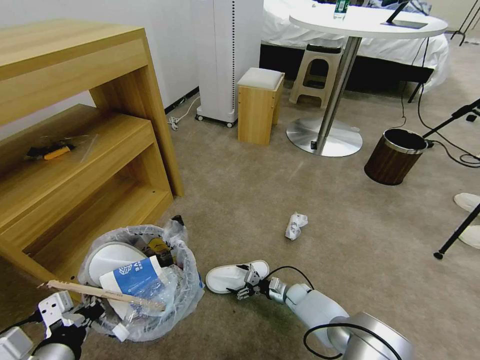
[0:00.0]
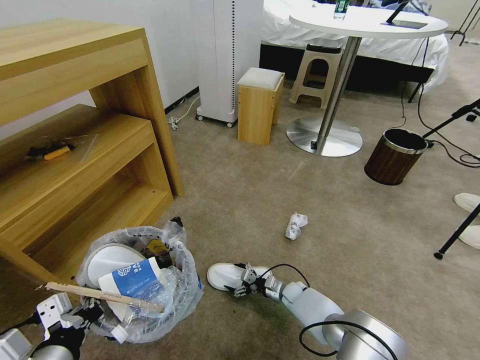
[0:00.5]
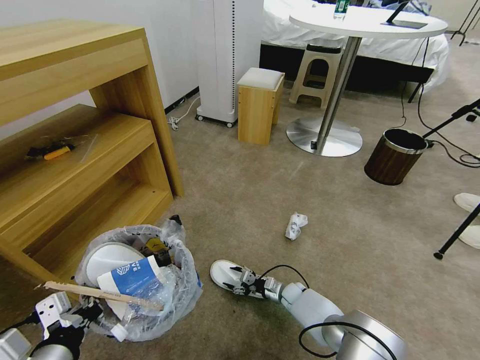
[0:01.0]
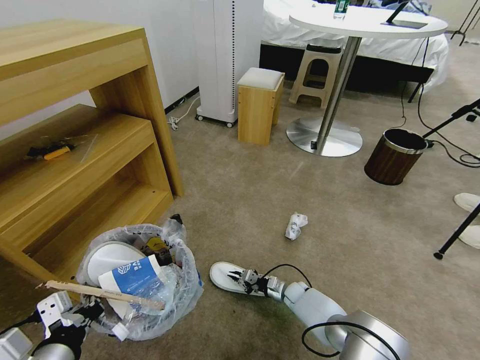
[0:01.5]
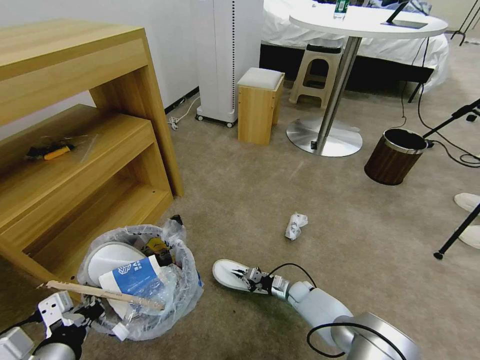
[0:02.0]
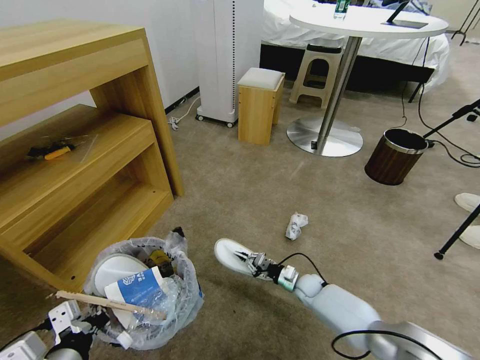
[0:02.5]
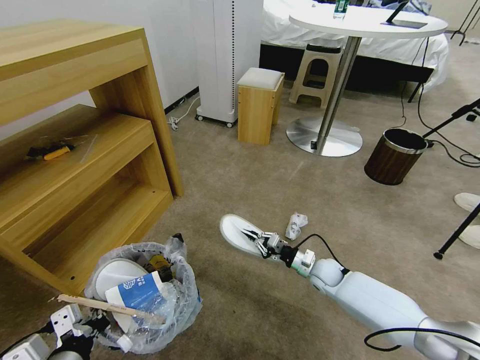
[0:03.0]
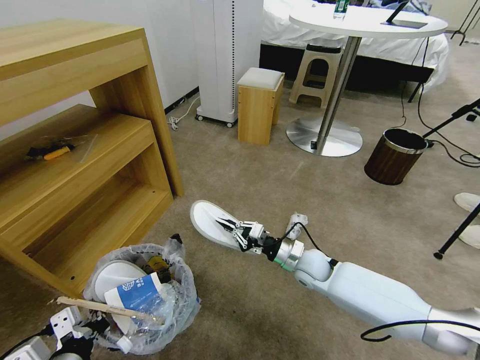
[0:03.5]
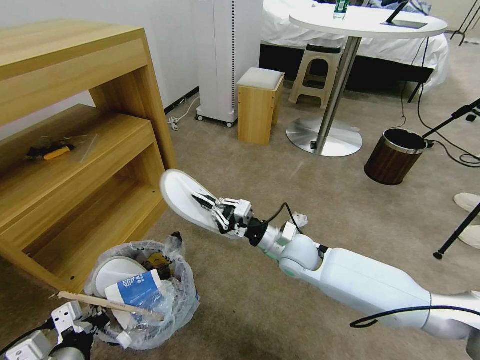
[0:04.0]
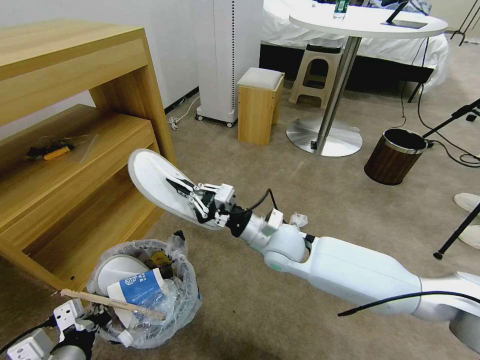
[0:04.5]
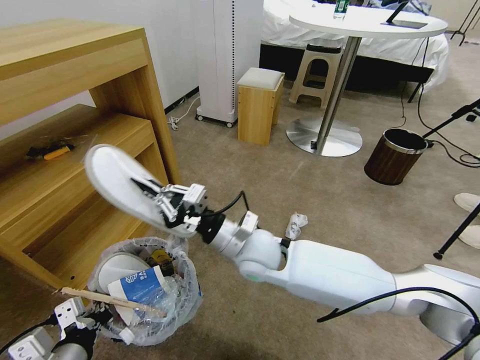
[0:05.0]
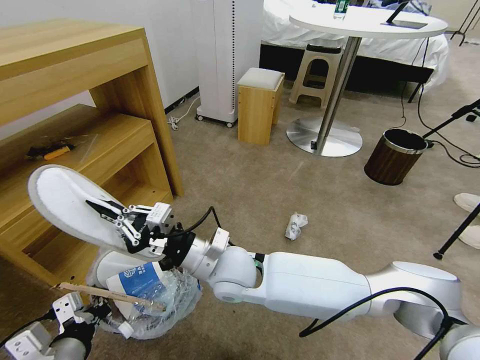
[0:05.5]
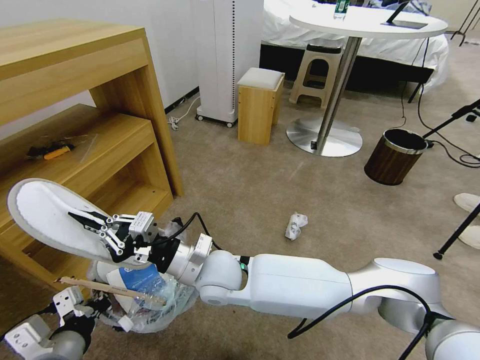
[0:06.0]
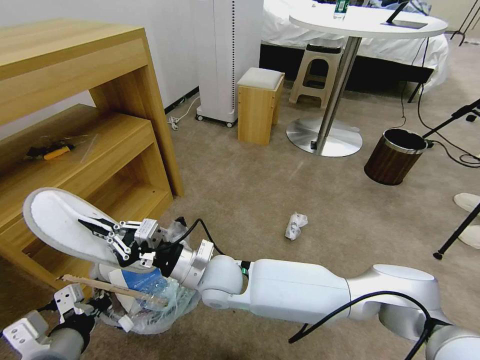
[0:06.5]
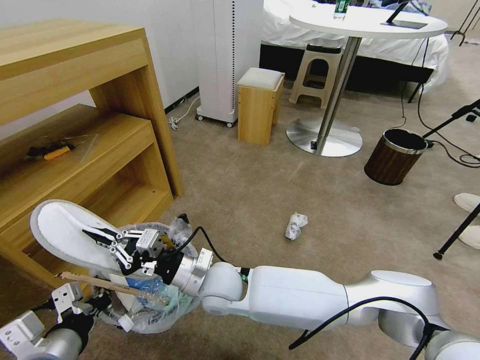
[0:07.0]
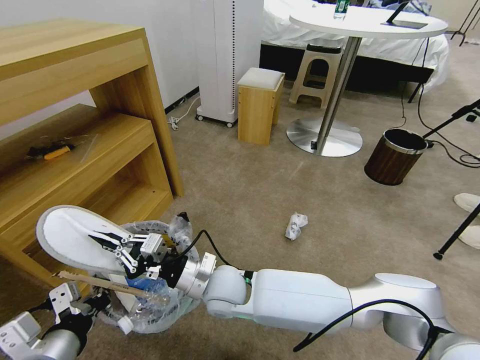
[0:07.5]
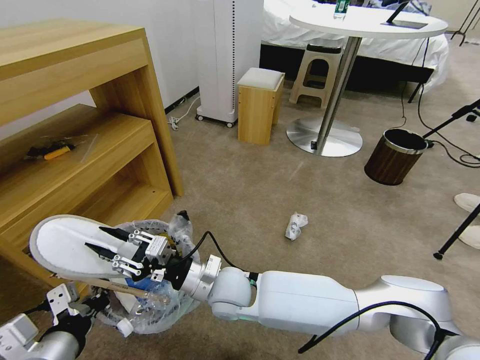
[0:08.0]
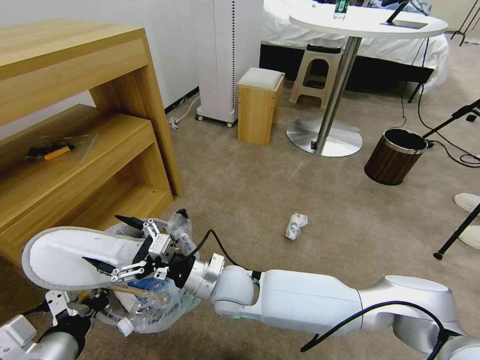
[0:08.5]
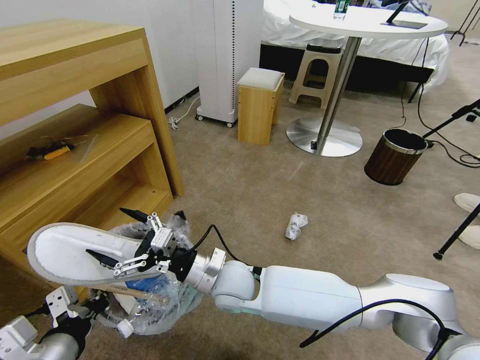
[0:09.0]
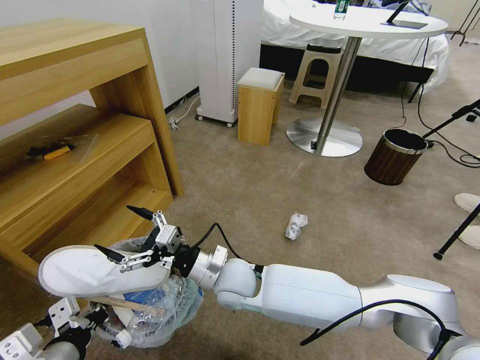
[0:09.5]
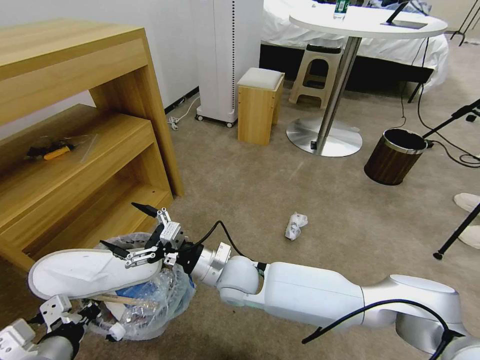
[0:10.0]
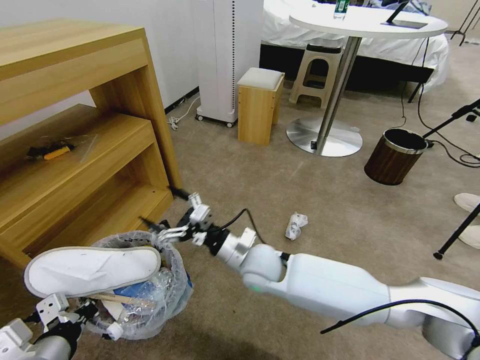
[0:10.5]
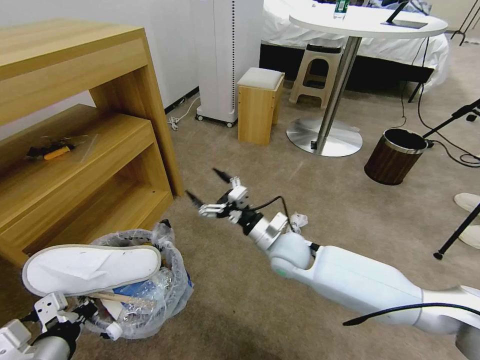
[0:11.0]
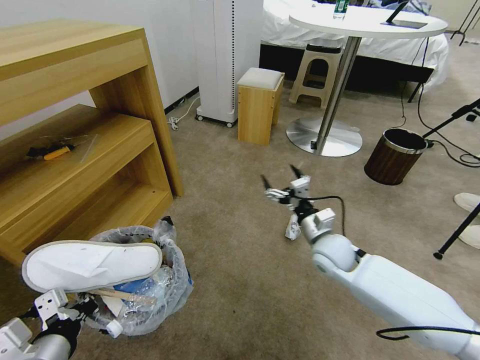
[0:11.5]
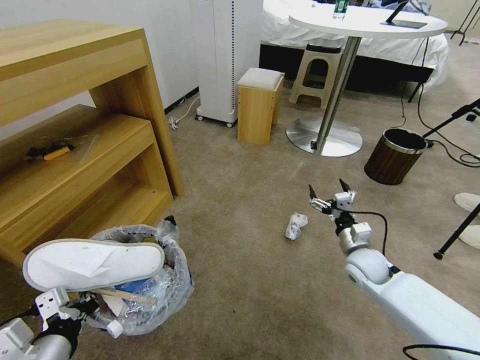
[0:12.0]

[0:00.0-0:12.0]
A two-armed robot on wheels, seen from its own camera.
Task of the whole recording: Pick up the trash bin and place the garbage on the floor into it.
0:00.0 to 0:02.0: The right gripper closes up.
0:02.0 to 0:04.0: The right gripper is displaced upward by some 30 cm.
0:04.0 to 0:06.0: The right gripper goes some 20 cm to the left and backward.
0:06.0 to 0:08.0: The right gripper shifts approximately 5 cm downward, and opens its fingers.
0:08.0 to 0:10.0: The right gripper opens.
0:10.0 to 0:12.0: The right gripper travels to the right by approximately 35 cm.

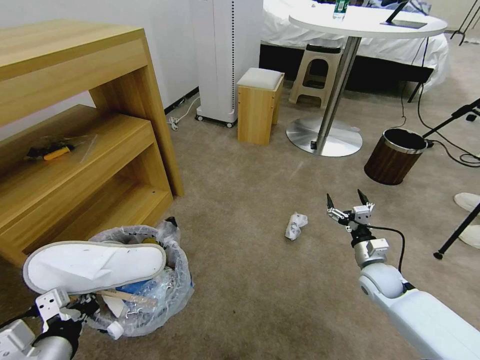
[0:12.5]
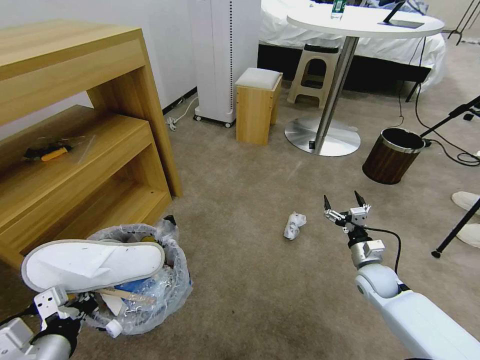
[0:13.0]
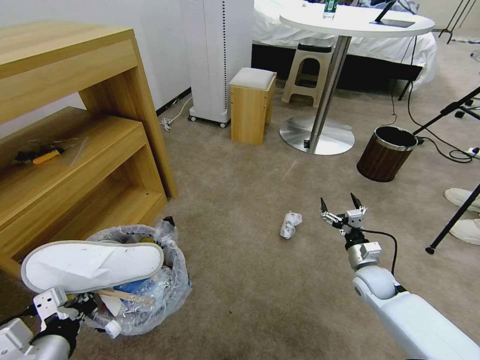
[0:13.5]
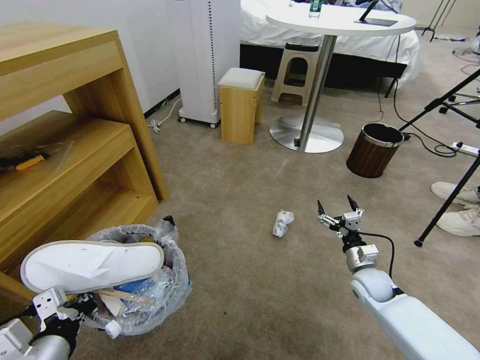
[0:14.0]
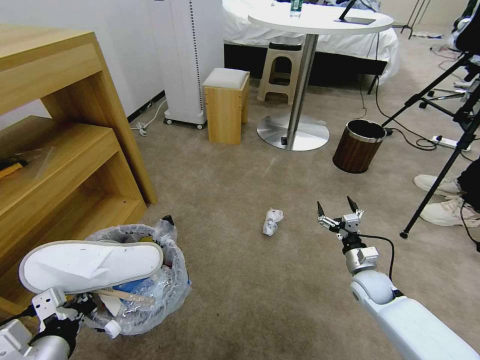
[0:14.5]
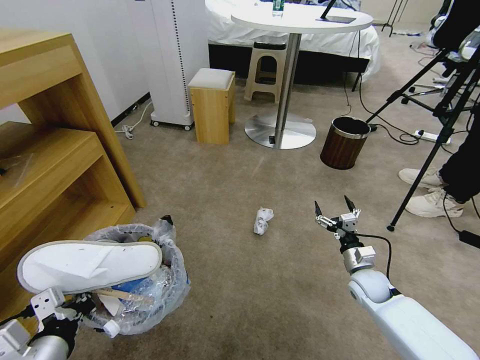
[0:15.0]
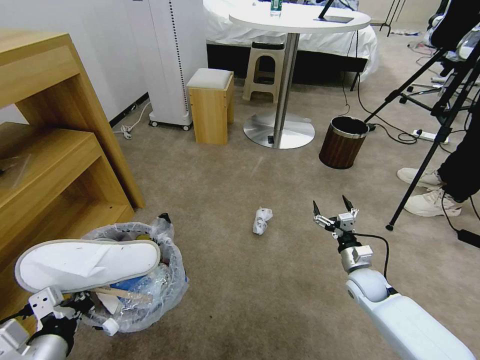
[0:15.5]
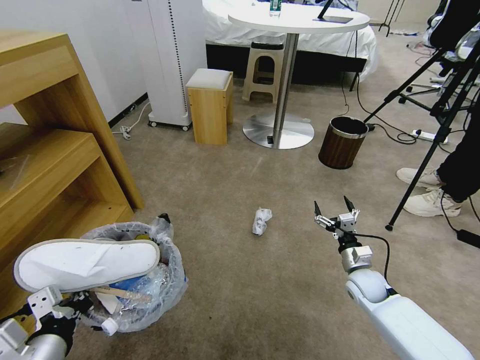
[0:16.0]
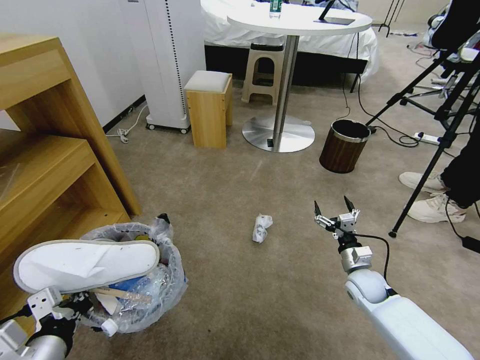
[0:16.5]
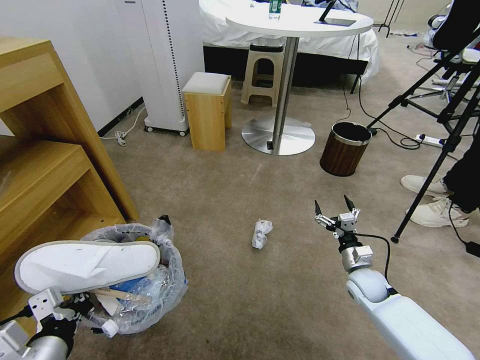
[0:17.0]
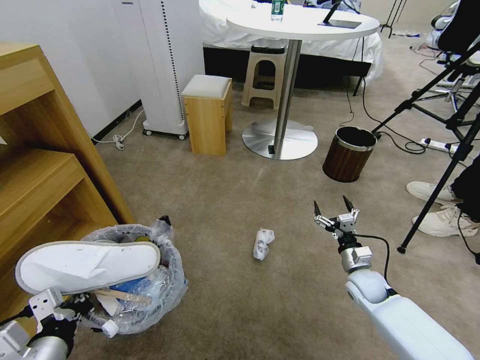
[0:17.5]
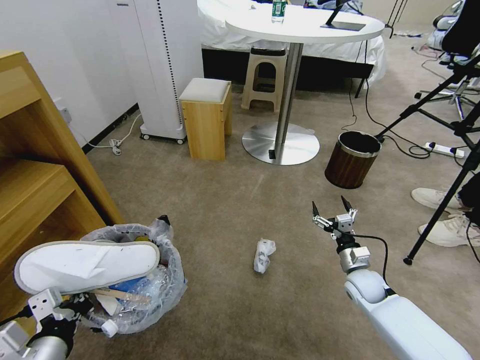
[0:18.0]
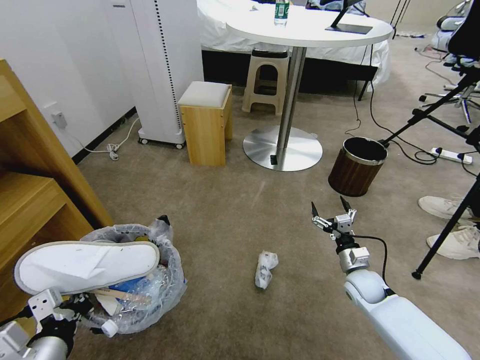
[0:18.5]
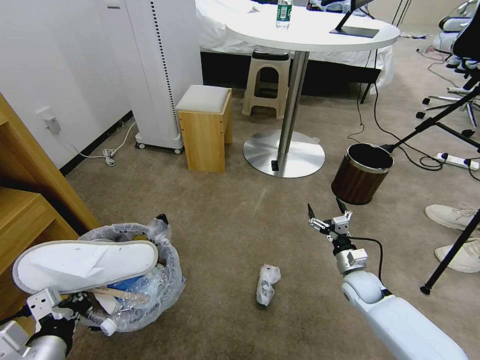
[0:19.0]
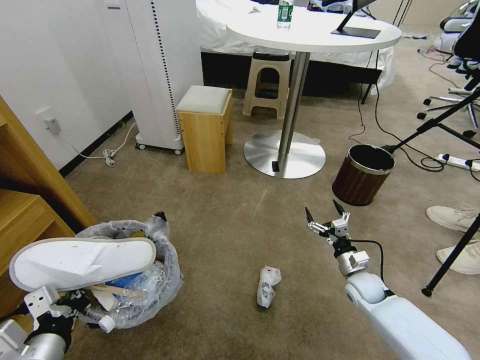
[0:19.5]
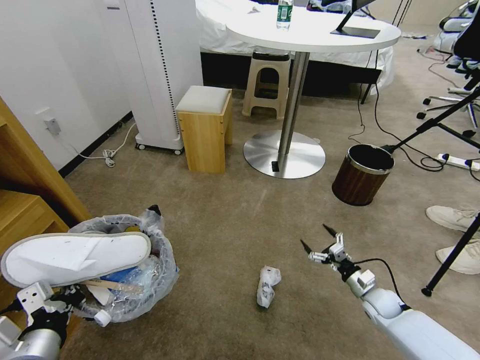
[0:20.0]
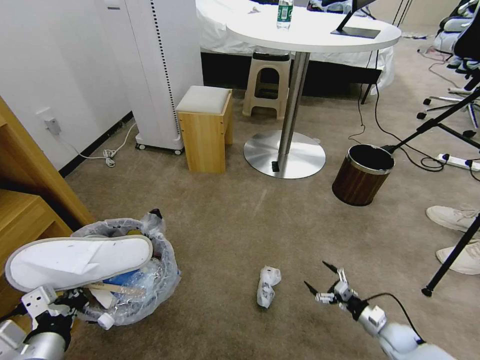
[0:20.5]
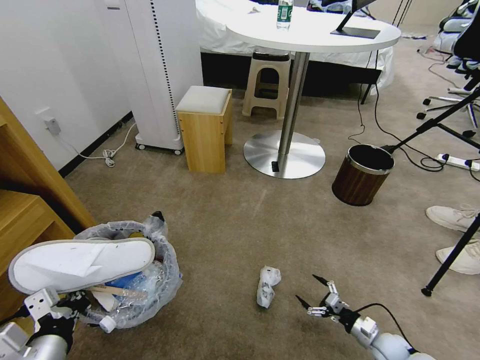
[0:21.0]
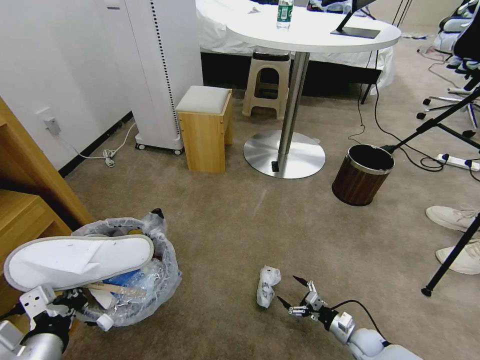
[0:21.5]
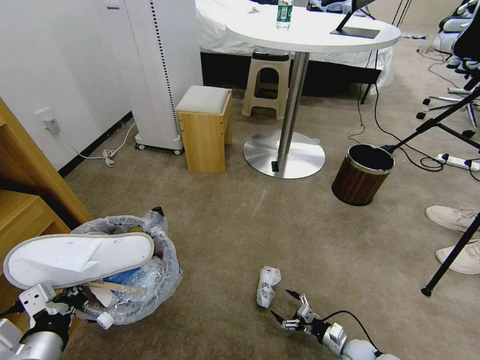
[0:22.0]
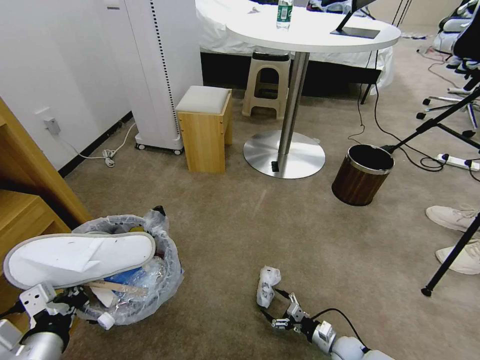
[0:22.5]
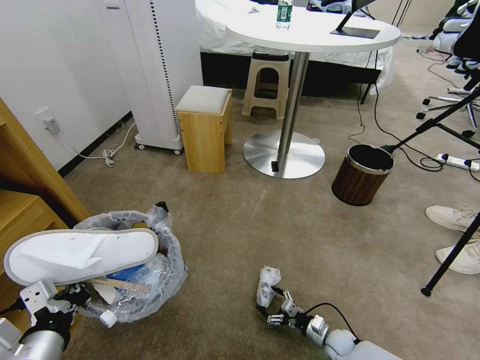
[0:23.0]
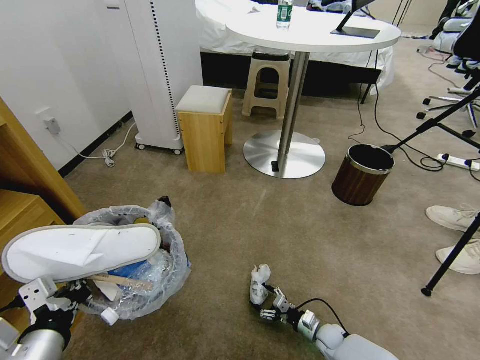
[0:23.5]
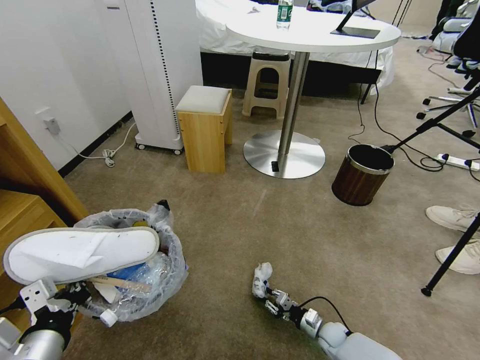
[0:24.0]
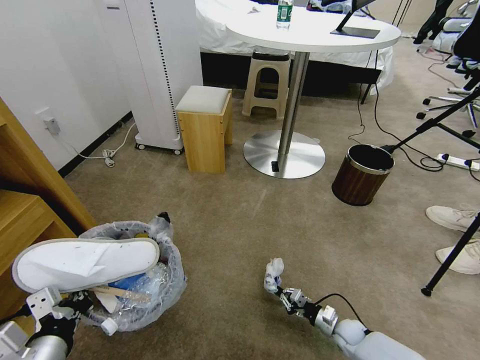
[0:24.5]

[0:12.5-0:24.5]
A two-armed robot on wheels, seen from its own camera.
Task of the whole recording: Pick up the trash bin and place the garbage on the floor into it.
0:18.5 to 0:20.5: The right gripper travels downward, to the right and backward by about 20 cm.
0:20.5 to 0:22.5: The right gripper heads to the left and downward, covering approximately 15 cm.
0:22.5 to 0:24.5: The right gripper changes place by roughly 5 cm, and closes.

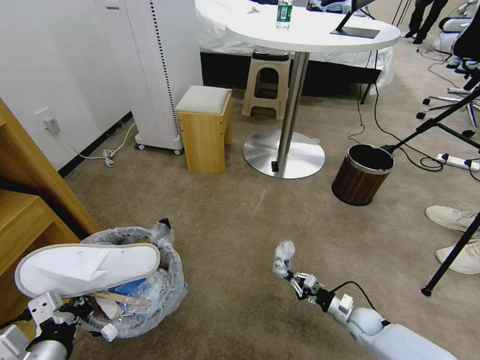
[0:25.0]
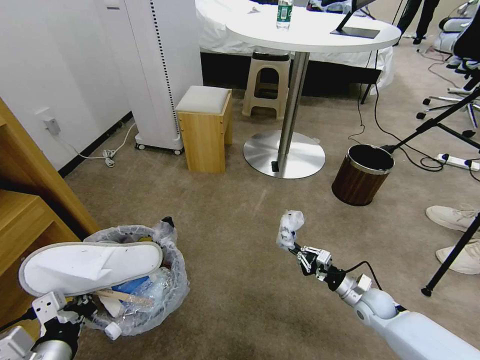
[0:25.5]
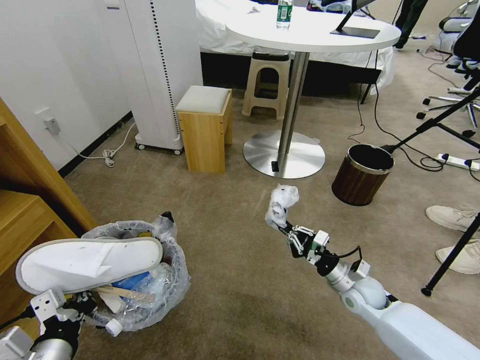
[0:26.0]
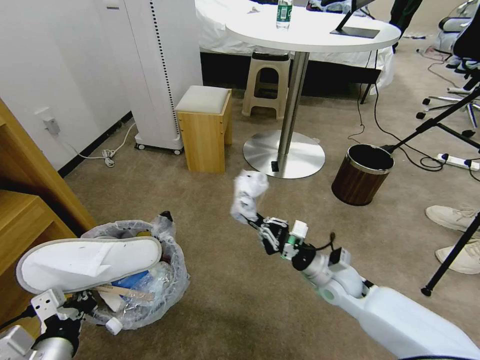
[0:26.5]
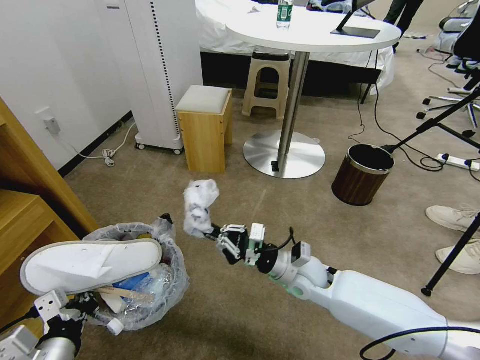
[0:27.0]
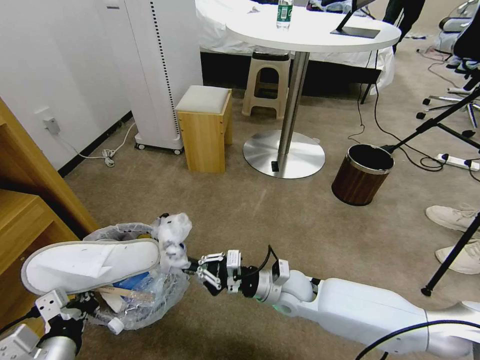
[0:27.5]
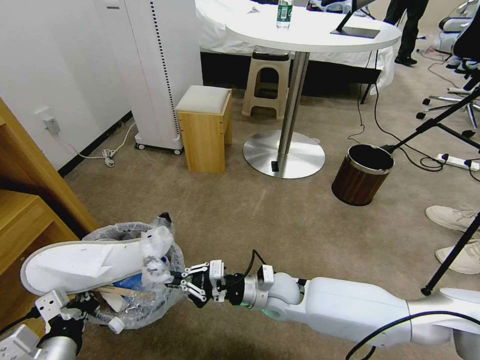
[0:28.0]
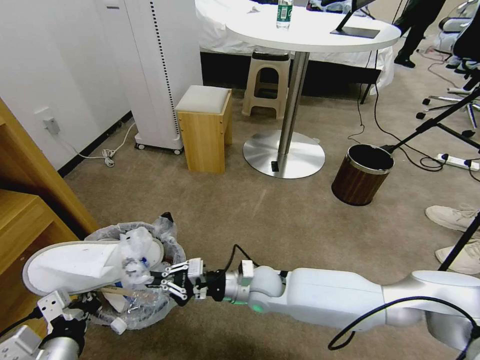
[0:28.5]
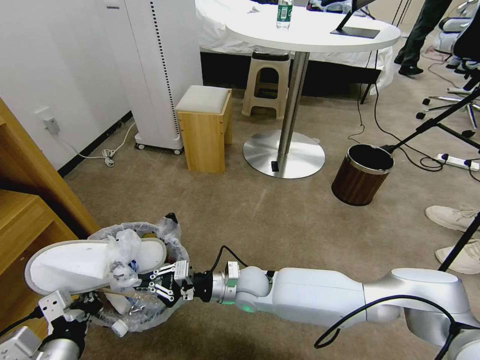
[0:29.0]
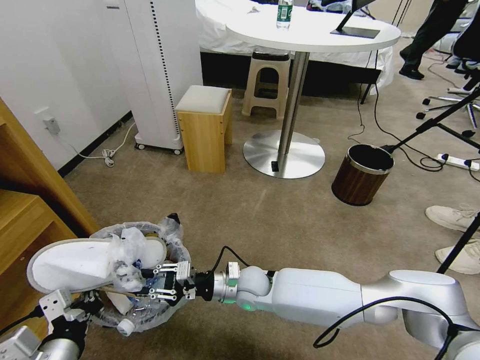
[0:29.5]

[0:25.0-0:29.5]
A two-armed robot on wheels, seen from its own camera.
Task of the whole recording: Pick up the trash bin and place the garbage on the floor into it.
0:25.0 to 0:27.0: The right gripper shifts roughly 30 cm upward and to the left.
0:27.0 to 0:29.5: The right gripper moves to the left and downward, approximately 15 cm.
